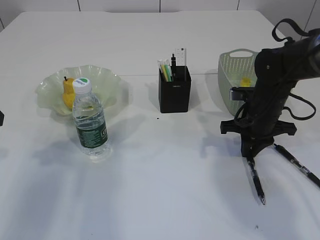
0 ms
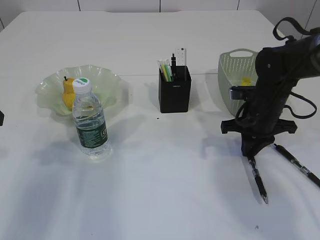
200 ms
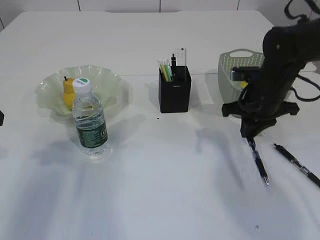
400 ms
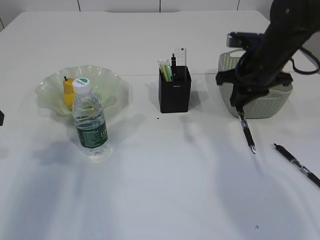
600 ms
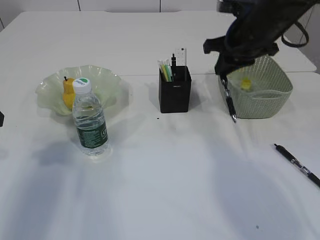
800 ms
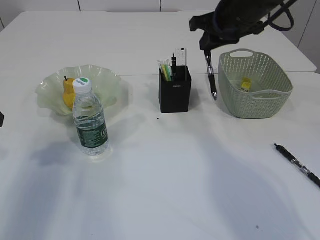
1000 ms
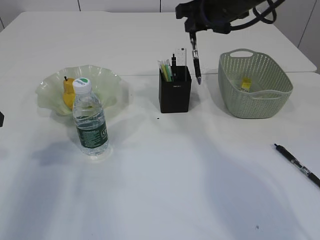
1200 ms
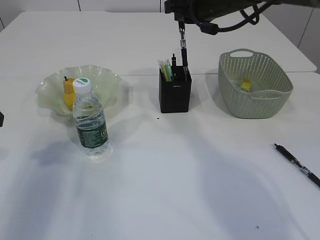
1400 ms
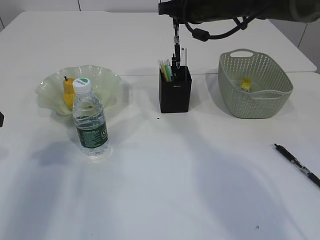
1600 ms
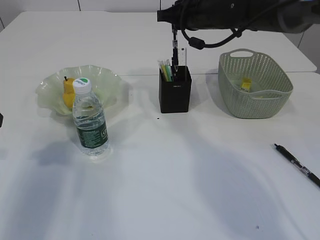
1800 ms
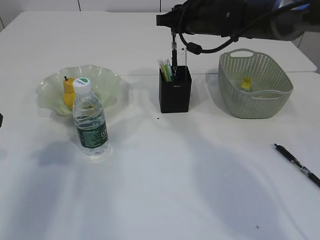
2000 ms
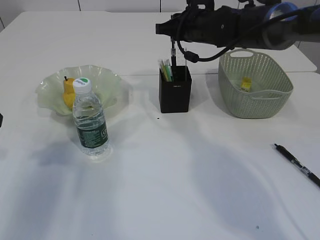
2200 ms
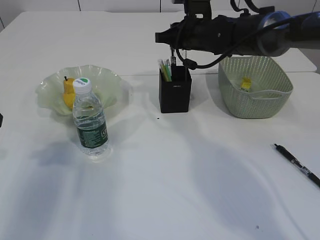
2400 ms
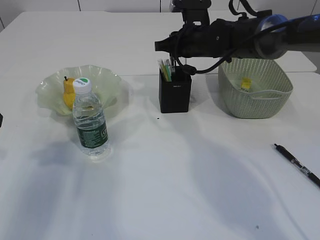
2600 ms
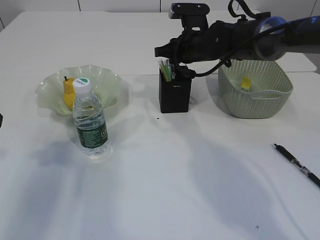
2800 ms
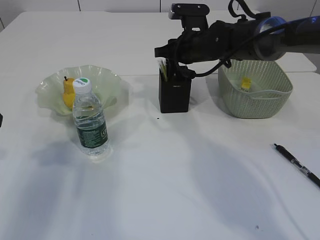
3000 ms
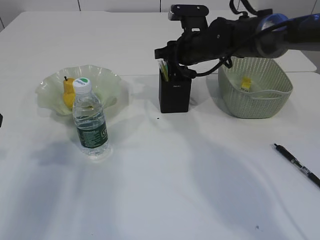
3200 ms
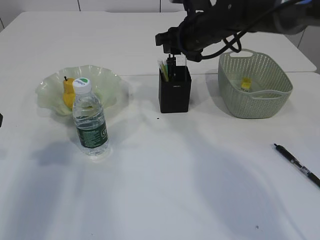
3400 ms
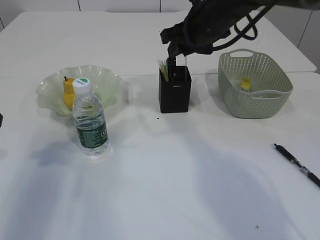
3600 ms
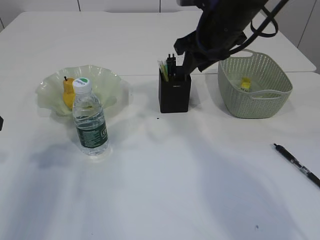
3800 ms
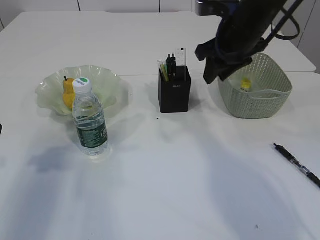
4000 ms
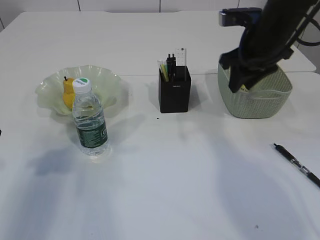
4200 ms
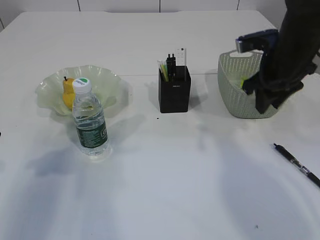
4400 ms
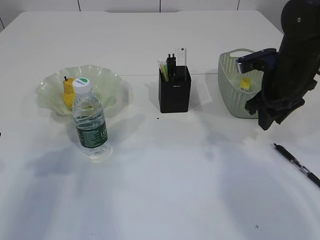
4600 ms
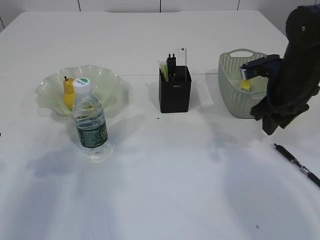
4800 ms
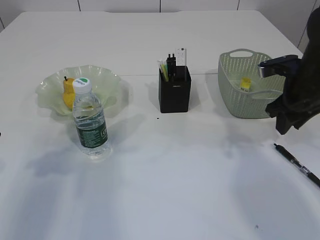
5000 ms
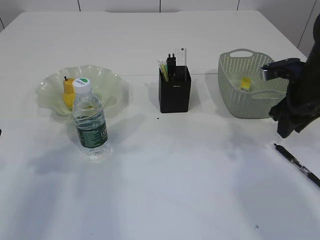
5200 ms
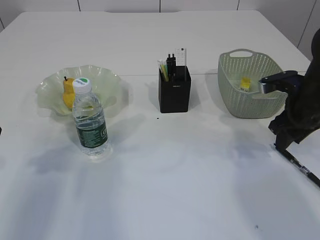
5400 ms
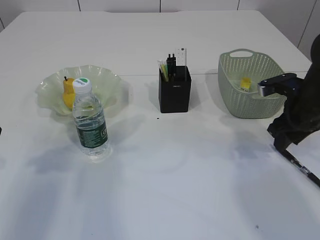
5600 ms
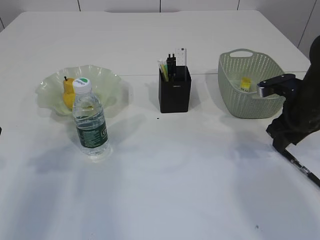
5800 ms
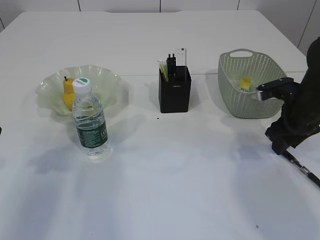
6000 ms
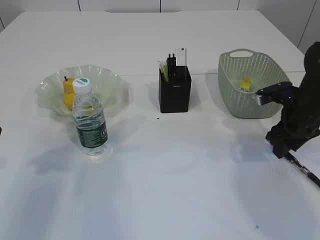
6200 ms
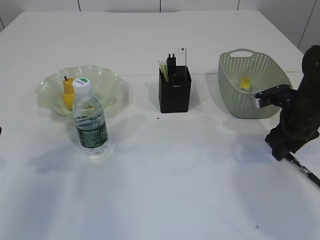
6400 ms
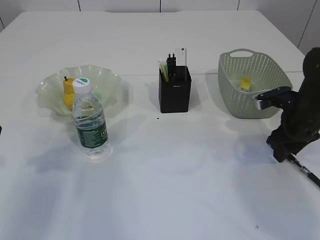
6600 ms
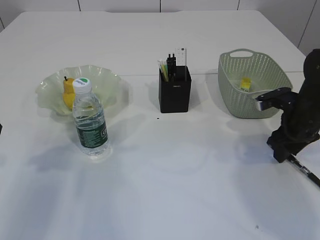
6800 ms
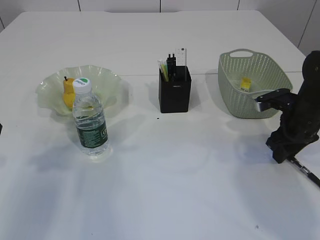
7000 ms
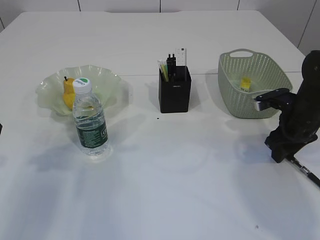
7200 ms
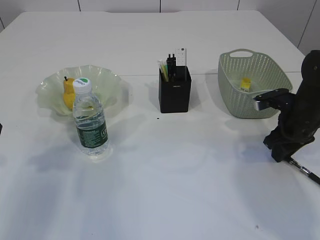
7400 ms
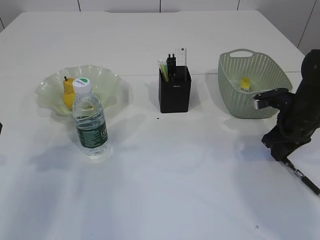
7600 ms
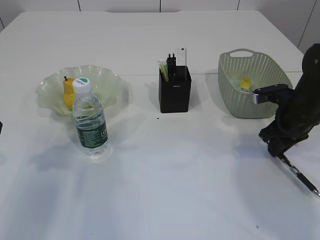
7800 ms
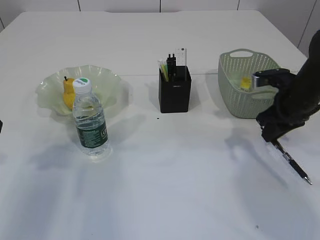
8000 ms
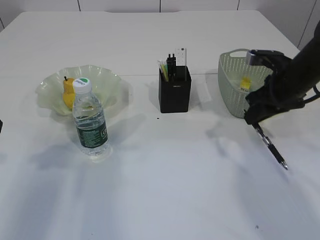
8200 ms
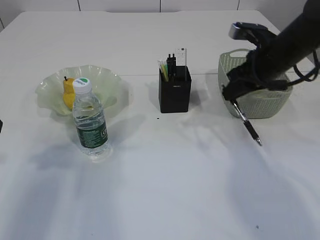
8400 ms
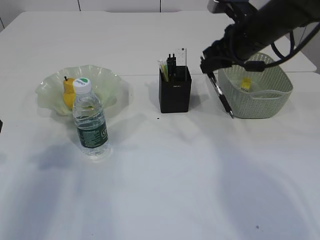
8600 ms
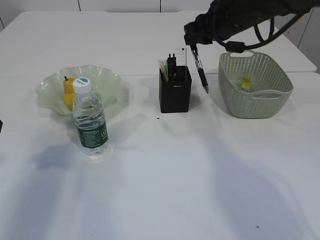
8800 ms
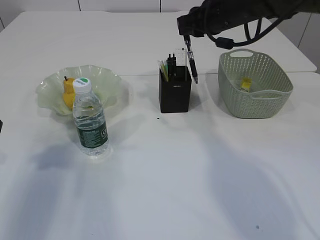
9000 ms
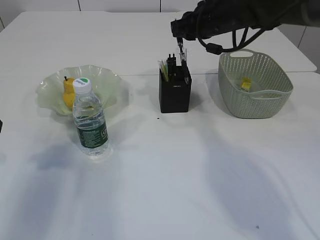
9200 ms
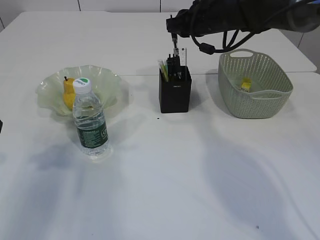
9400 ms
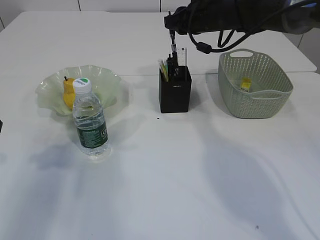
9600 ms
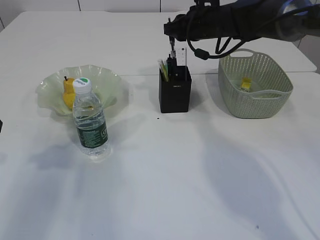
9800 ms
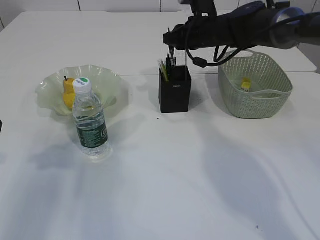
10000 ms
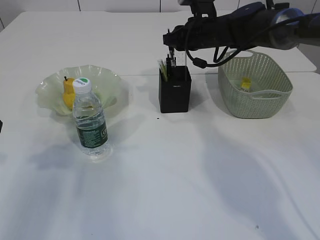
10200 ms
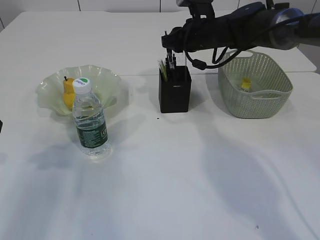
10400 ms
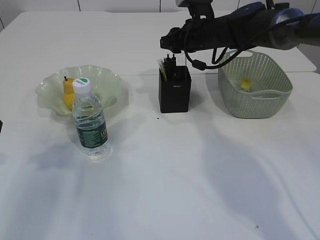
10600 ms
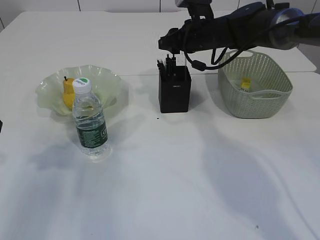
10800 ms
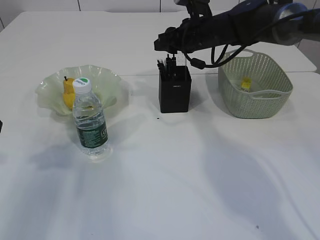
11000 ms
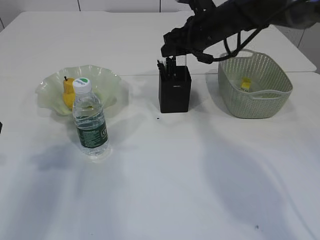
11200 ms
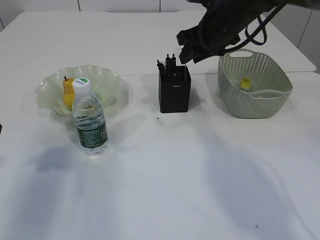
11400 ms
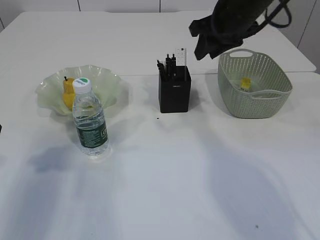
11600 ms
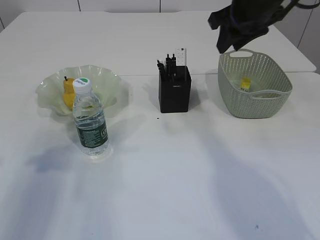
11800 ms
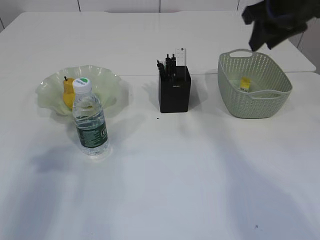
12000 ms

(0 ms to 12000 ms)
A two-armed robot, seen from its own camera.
Step, 400 ms - 3400 ms: Place the pen into the pen holder.
Step, 3600 ms - 8000 ms: Pick up the pen with right arm.
Step, 8200 ms - 11200 ms: Place the pen into the pen holder.
0 ms - 1600 ms: The right gripper travels upward, to the left and forward by some 20 cm.
1600 ms - 3000 ms: The right gripper travels downward by roughly 10 cm.
3000 ms - 4400 ms: The right gripper travels to the right and backward by approximately 15 cm.
4400 ms - 6000 ms: The right gripper is displaced downward and to the right by approximately 10 cm.
6000 ms - 7600 ms: The right gripper closes.
7600 ms - 9000 ms: The right gripper shifts some 25 cm upward, to the left and forward.
9000 ms - 10400 ms: The right gripper shifts some 10 cm downward and forward.
10400 ms - 12000 ms: The right gripper shifts about 20 cm backward, upward and to the right.

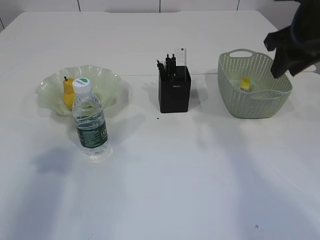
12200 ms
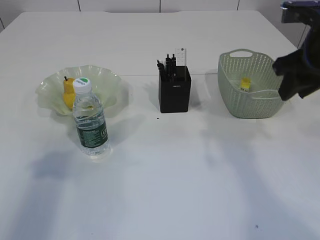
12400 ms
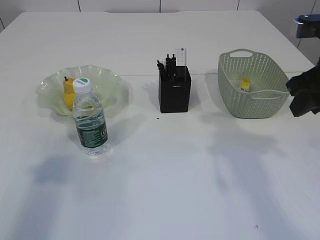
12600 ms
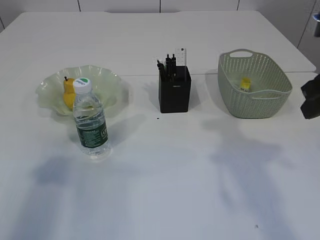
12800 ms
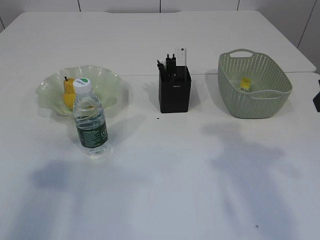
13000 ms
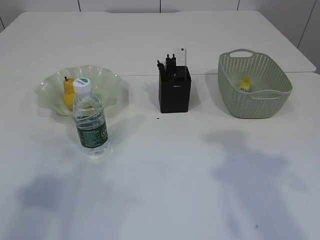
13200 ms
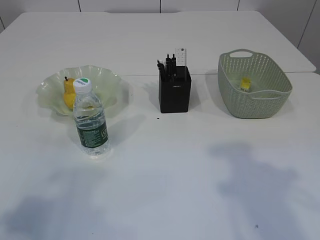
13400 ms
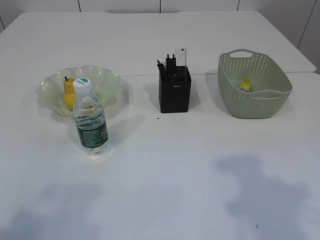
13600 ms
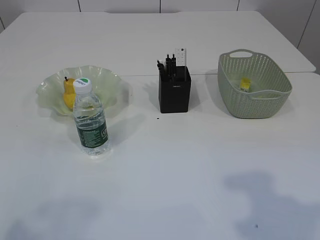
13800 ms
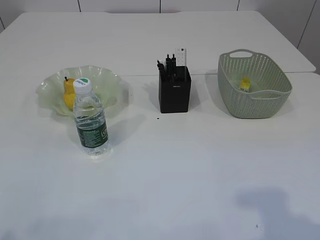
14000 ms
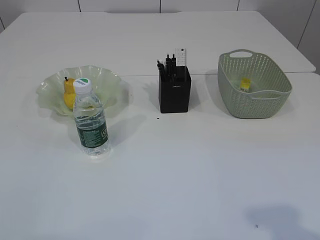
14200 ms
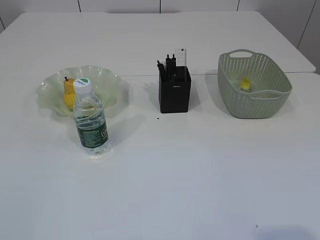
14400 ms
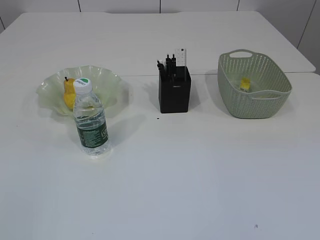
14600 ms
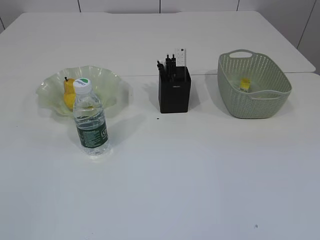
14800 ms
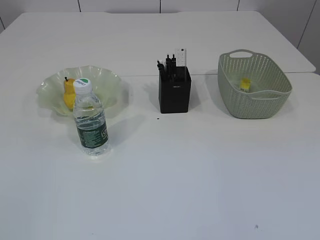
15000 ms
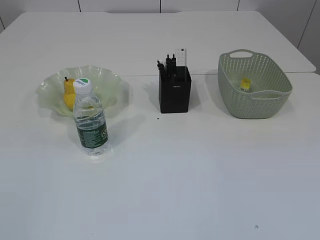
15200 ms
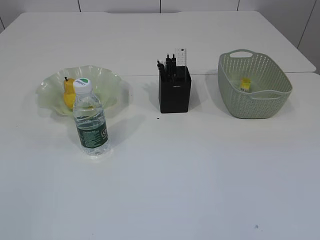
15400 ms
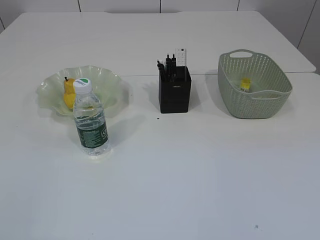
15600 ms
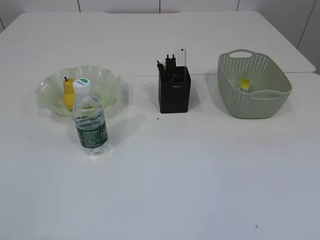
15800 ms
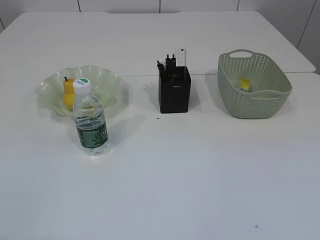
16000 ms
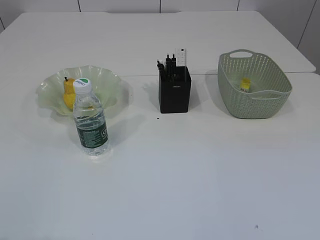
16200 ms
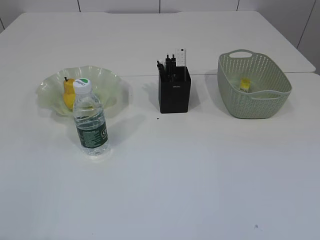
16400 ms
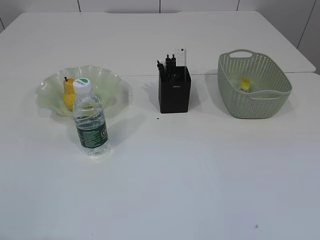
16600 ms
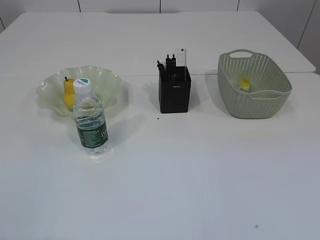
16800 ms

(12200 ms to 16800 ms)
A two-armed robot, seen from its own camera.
12200 ms - 13800 ms: Both grippers travel together backward, approximately 20 cm.

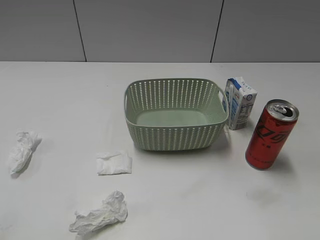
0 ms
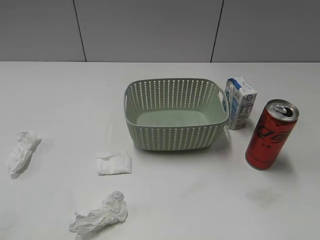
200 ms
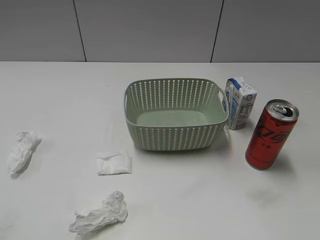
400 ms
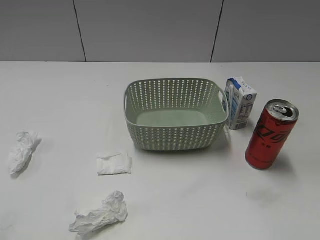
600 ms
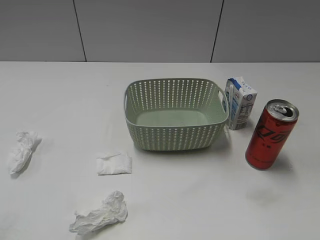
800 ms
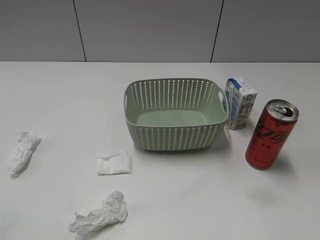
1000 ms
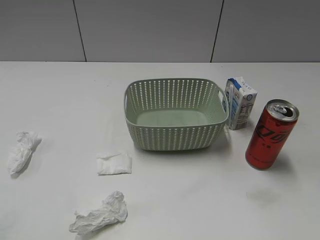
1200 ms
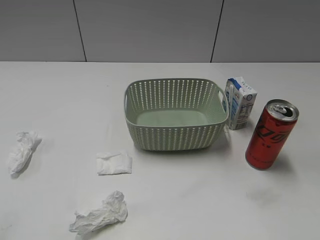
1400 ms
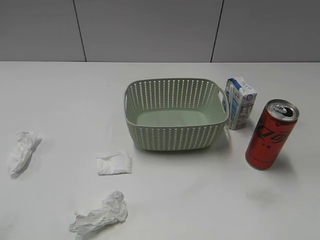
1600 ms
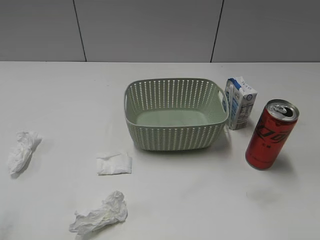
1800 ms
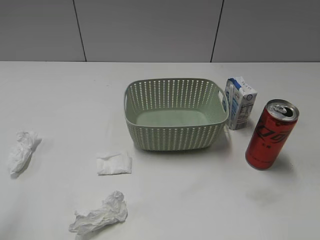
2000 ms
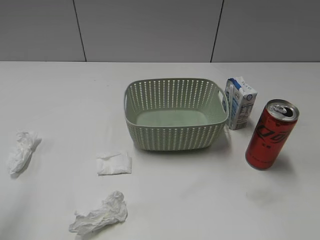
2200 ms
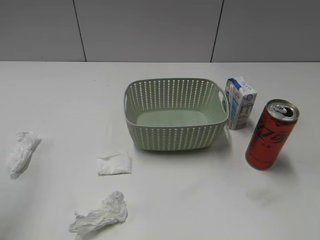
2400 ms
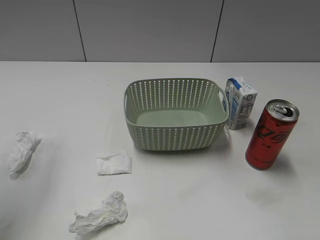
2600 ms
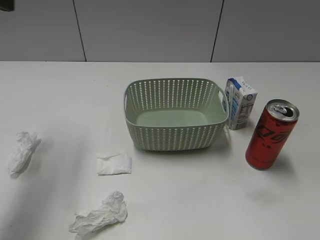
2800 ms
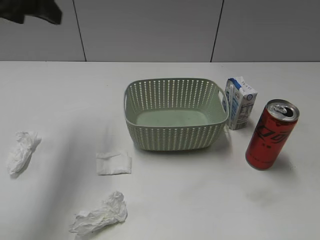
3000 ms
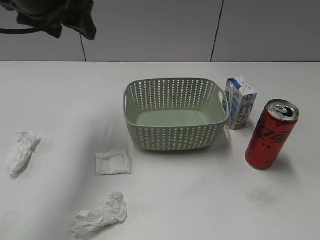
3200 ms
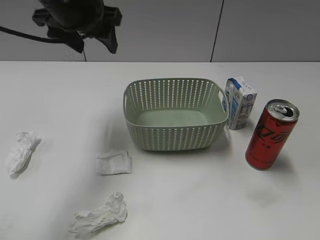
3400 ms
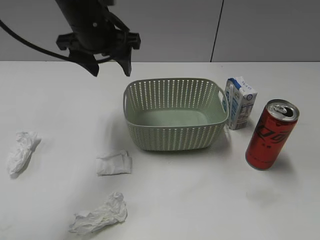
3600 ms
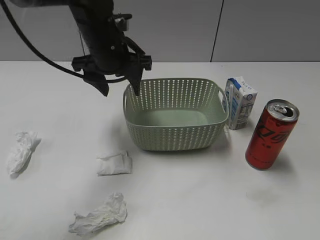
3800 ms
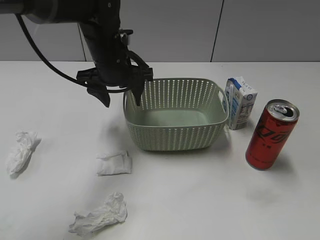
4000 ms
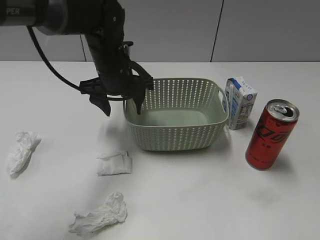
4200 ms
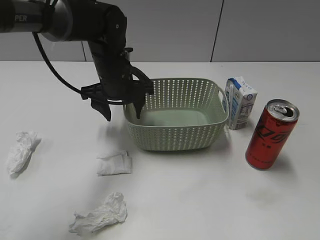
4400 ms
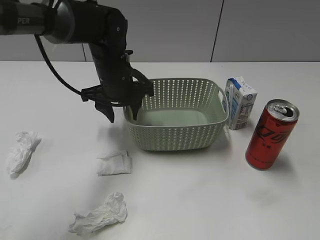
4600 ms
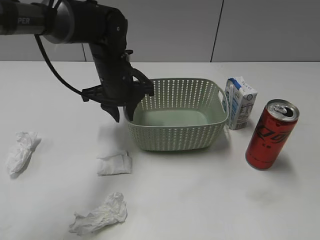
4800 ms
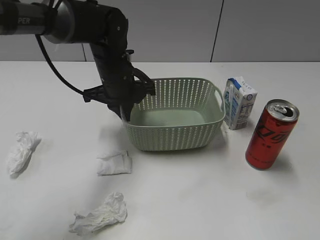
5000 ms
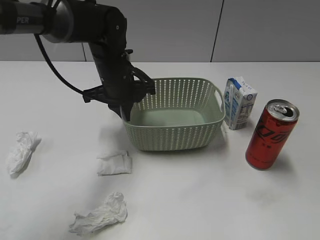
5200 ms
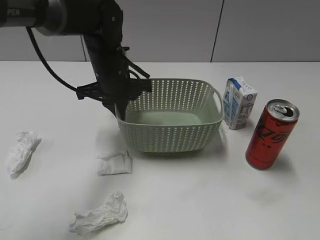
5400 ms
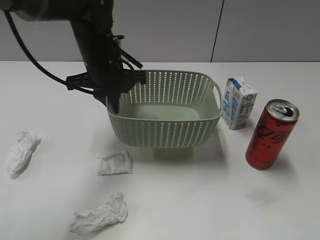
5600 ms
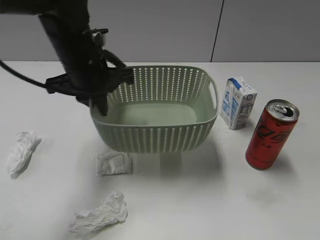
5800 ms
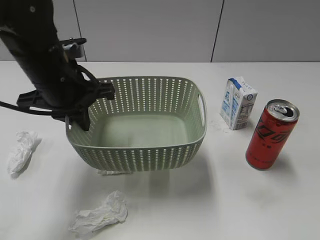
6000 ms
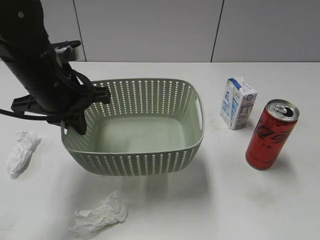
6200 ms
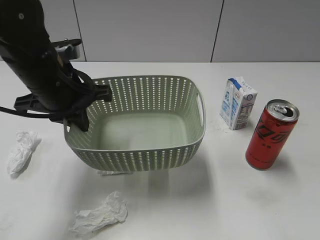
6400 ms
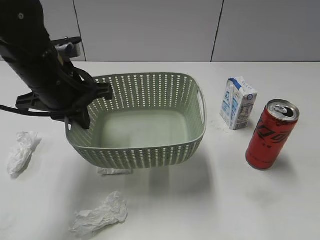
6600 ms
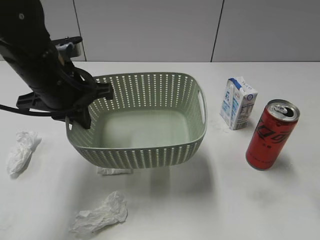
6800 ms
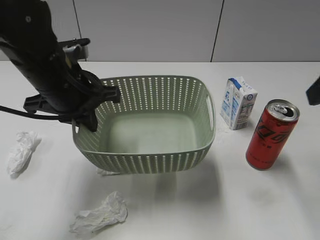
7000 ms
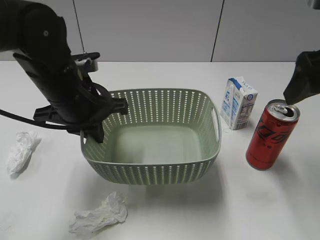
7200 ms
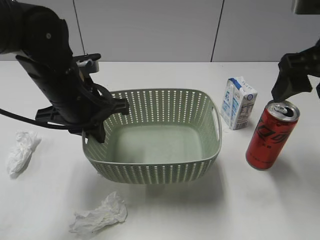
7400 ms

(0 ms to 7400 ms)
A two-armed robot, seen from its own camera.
Step, 2800 ms - 5200 ms: Grasp the basket with left gripper.
Step, 5400 ms - 6800 ms: Lift the basket with left gripper.
1400 ms - 3000 ms: The left gripper travels forward by some 30 cm.
3000 ms - 4400 ms: The left gripper is displaced downward and to the right by approximately 25 cm.
4400 ms - 6000 ms: The left gripper is displaced backward, to the left and upward by some 15 cm, and closes up.
6000 ms - 7400 ms: The right gripper moves forward, roughly 25 cm, and opens its fingers.
